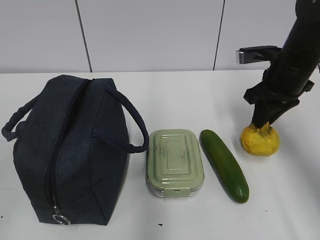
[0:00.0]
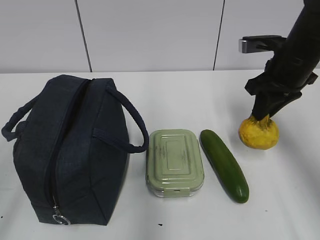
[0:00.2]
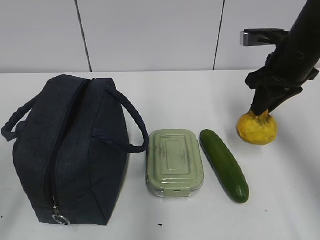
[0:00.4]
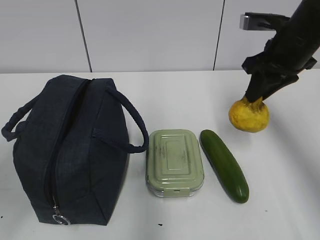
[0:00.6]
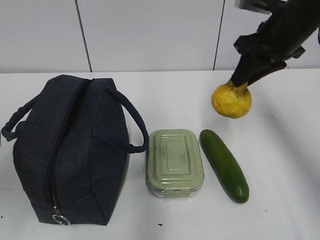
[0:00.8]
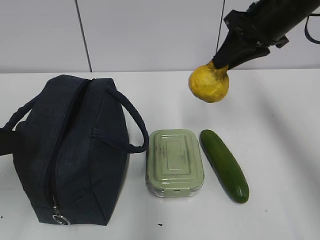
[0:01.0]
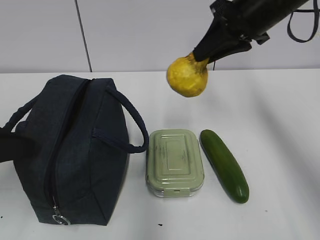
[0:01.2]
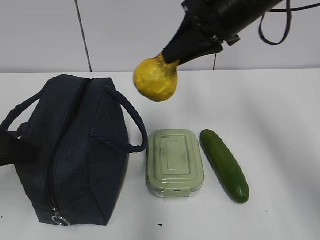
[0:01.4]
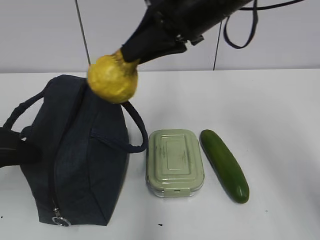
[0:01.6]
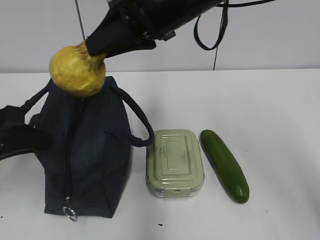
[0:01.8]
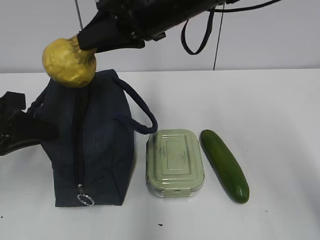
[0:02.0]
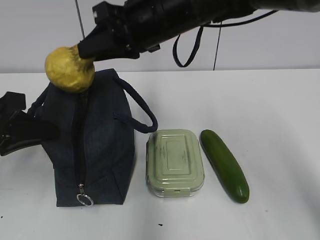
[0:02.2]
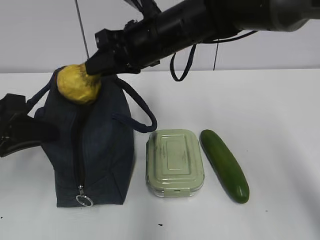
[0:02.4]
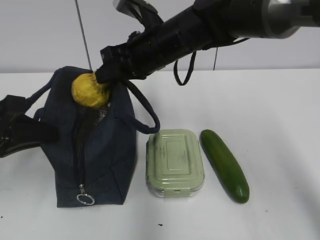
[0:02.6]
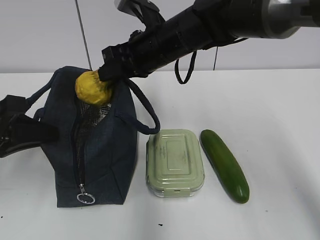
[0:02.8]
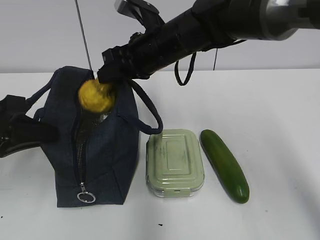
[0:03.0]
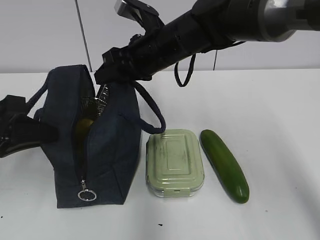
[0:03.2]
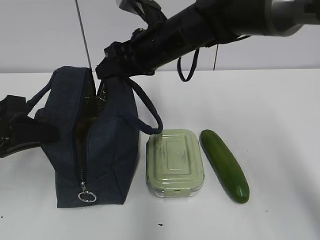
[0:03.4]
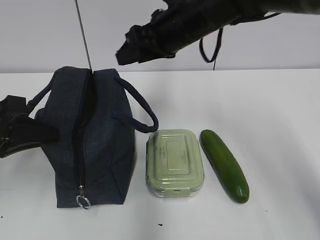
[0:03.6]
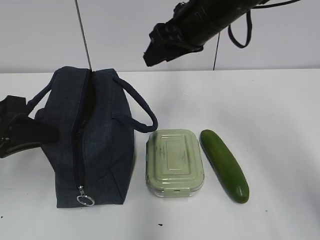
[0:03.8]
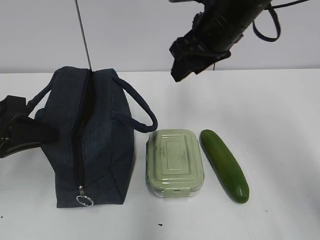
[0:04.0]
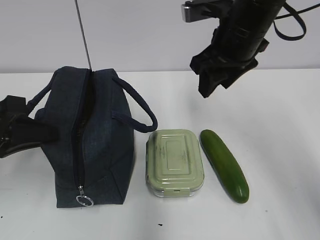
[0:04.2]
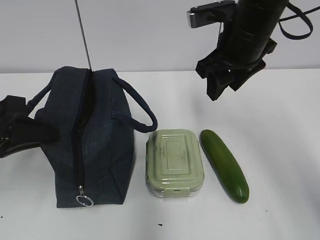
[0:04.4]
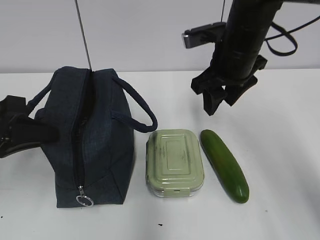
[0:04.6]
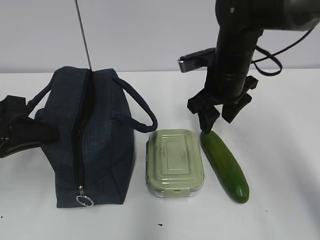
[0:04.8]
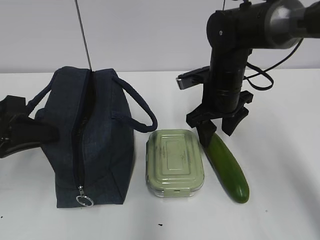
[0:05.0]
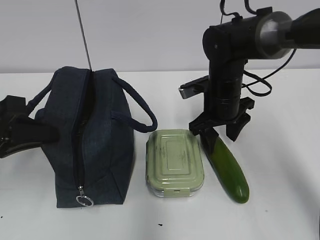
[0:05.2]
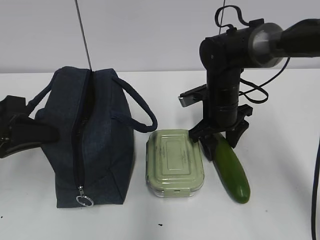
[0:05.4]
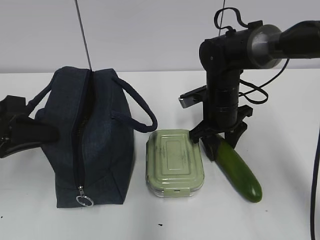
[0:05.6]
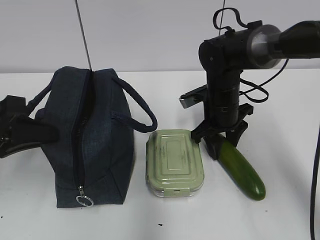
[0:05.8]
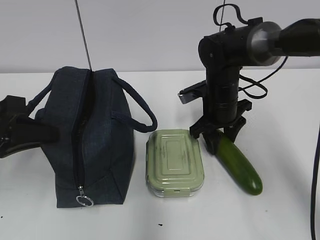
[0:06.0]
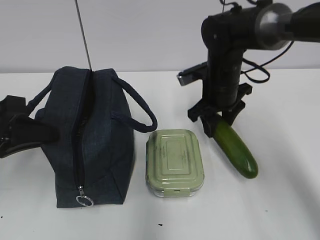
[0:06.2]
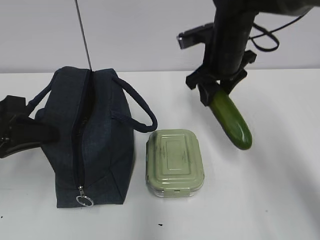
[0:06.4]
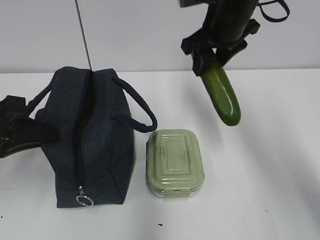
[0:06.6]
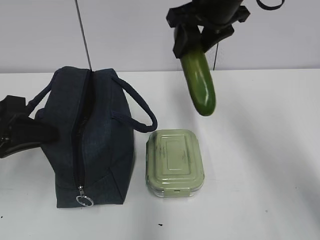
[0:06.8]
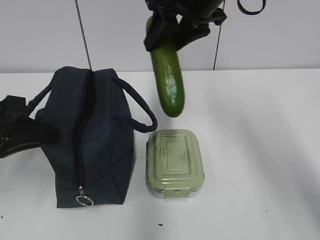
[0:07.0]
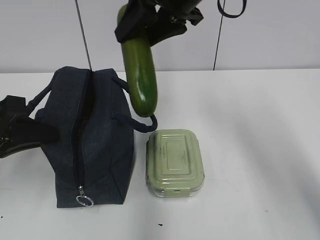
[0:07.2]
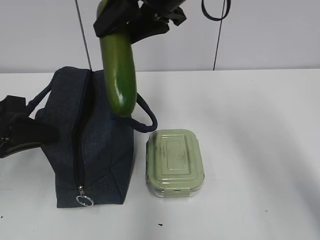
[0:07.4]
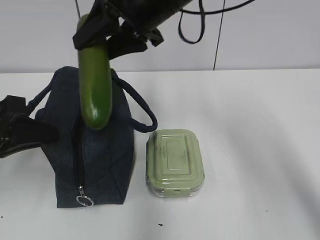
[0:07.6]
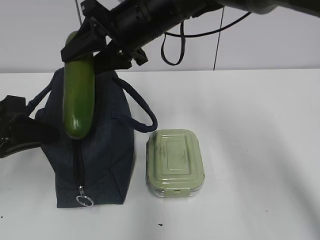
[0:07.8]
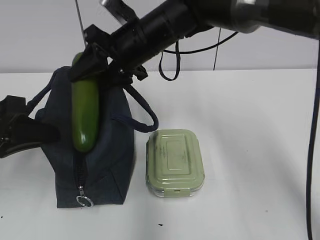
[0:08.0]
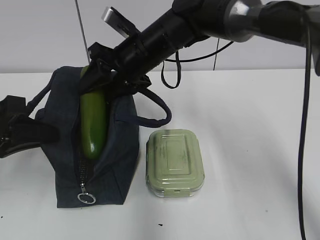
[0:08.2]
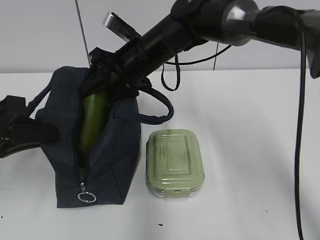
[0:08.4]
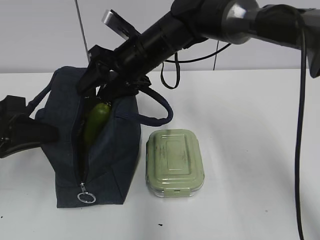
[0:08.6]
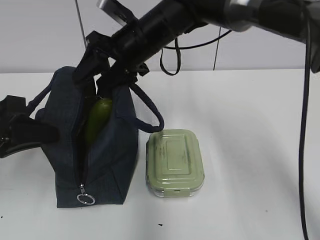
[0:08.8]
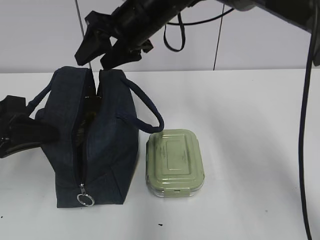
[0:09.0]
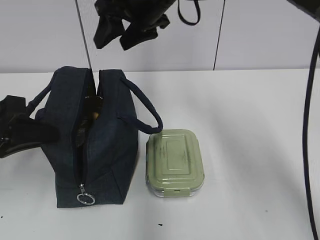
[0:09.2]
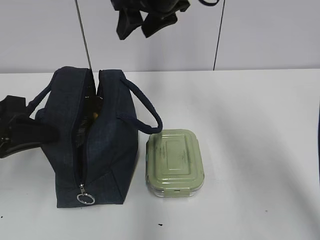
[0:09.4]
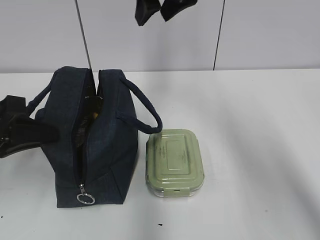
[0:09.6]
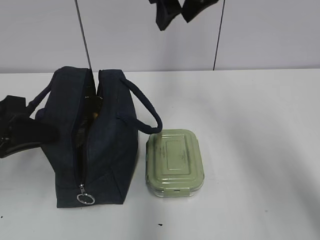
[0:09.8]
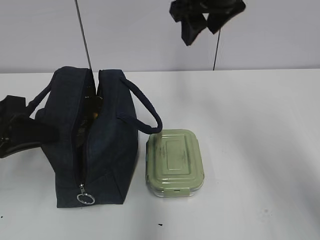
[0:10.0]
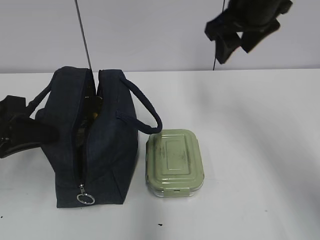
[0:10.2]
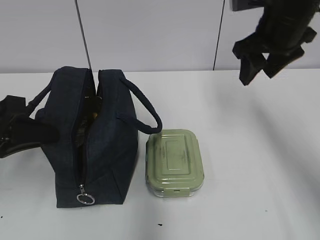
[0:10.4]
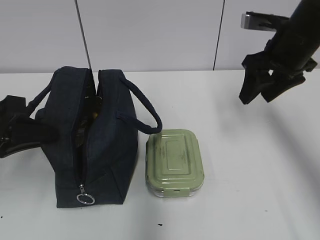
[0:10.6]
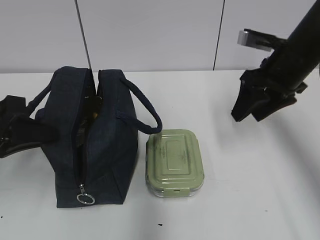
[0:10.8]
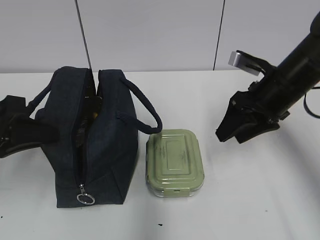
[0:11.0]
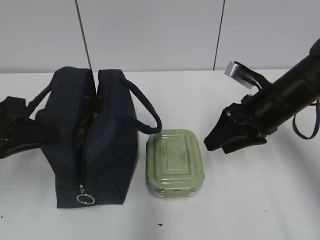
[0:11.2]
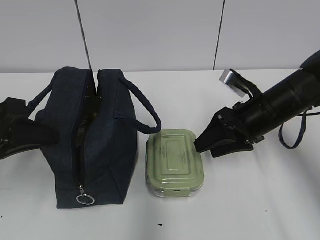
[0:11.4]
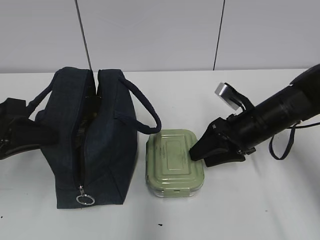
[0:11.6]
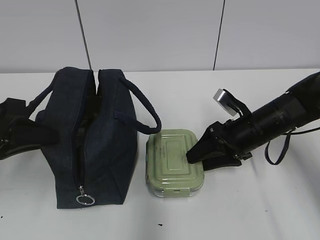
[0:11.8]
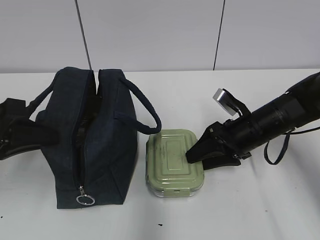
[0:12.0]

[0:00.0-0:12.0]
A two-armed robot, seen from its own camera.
Step, 0:00.0 to 0:02.6: Grab the lunch bag with your left hand.
Step, 0:02.8 to 0:03.2: Place it into the bag with your right hand.
Step, 0:03.4 to 0:05.8: Grab the cucumber with your right hand.
Step, 0:06.0 to 0:08.8: Place it into the bag with your right hand.
0:00.0 to 0:01.6: The left gripper is displaced forward and downward by approximately 20 cm, and closes. The right gripper shifts approximately 20 cm to the left and upward.
0:01.6 to 0:03.0: The right gripper is displaced downward and forward by approximately 10 cm.
0:03.0 to 0:04.4: The right gripper travels to the right by about 10 cm.
0:04.4 to 0:06.0: The right gripper goes about 15 cm downward.
0:06.0 to 0:07.6: The right gripper heads upward and to the left, covering about 20 cm.
0:07.6 to 0:09.0: The right gripper goes downward and returns, some 10 cm each way.
0:09.0 to 0:10.4: The right gripper heads to the right, covering roughly 20 cm.
0:10.4 to 0:12.0: The right gripper heads downward, covering about 20 cm.

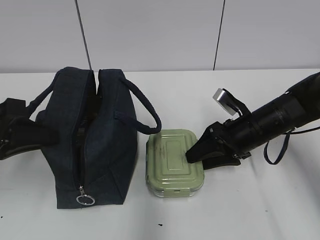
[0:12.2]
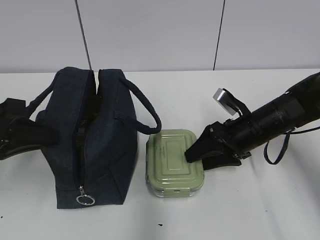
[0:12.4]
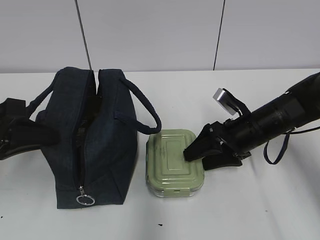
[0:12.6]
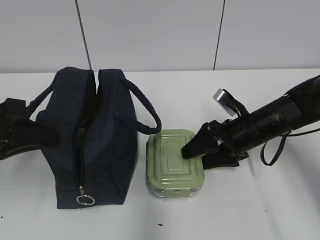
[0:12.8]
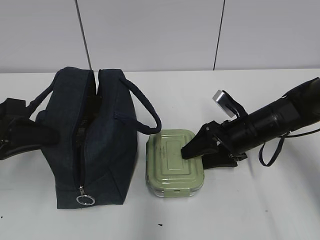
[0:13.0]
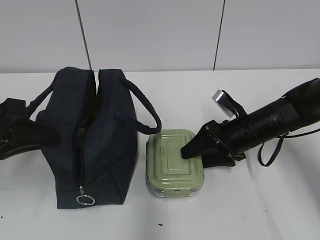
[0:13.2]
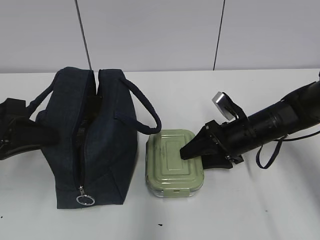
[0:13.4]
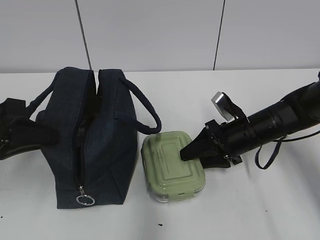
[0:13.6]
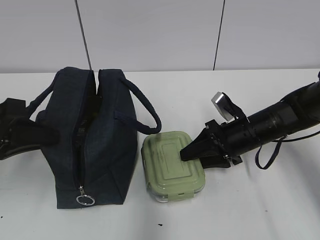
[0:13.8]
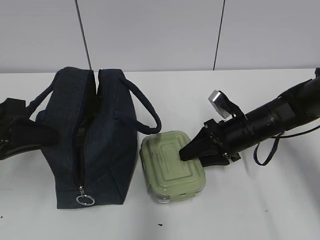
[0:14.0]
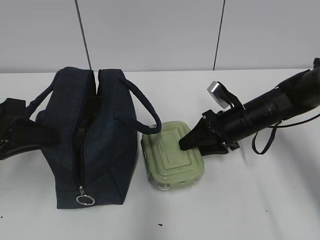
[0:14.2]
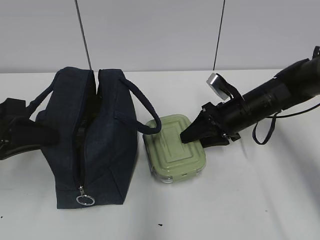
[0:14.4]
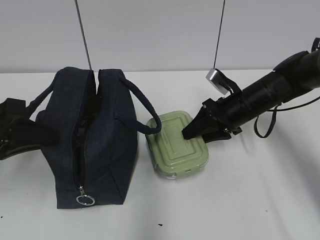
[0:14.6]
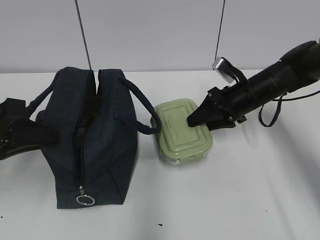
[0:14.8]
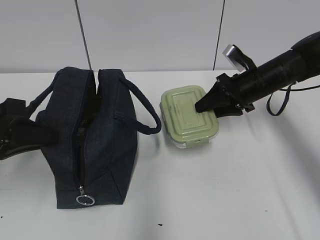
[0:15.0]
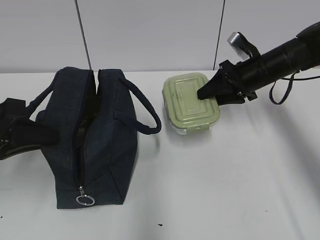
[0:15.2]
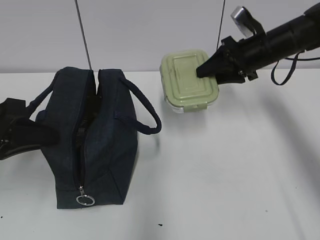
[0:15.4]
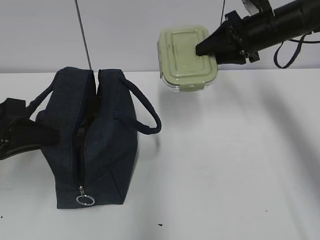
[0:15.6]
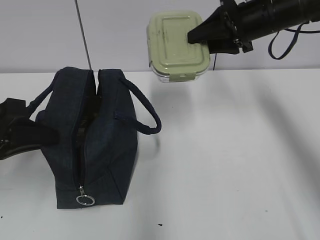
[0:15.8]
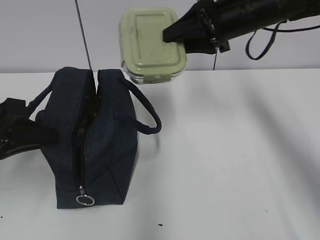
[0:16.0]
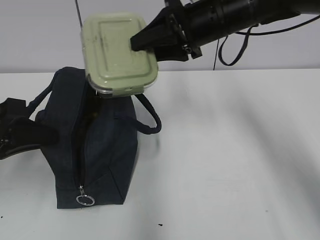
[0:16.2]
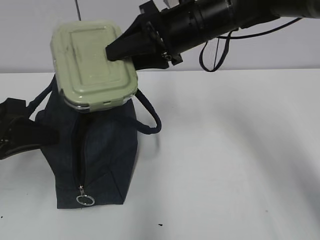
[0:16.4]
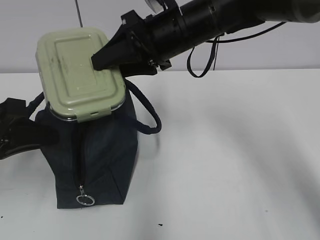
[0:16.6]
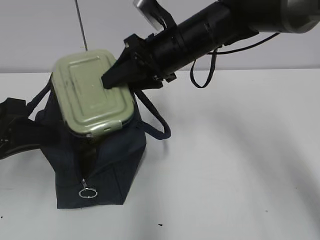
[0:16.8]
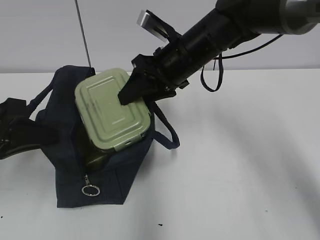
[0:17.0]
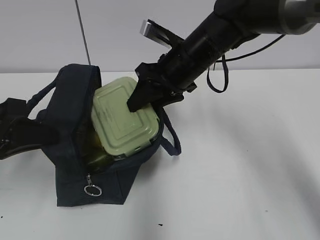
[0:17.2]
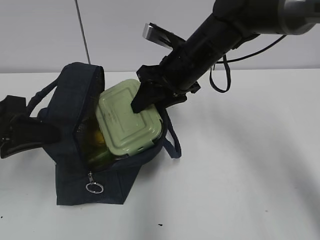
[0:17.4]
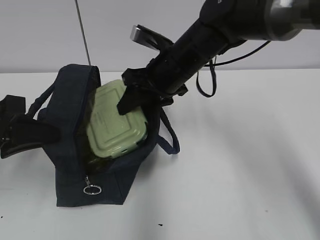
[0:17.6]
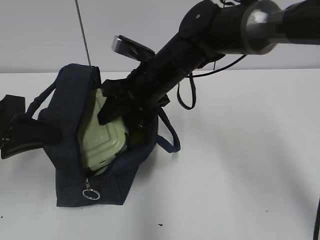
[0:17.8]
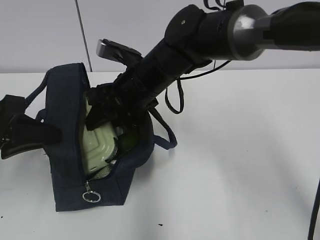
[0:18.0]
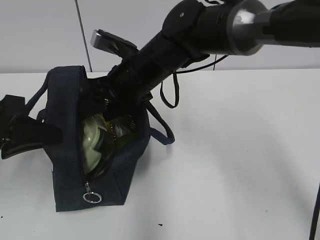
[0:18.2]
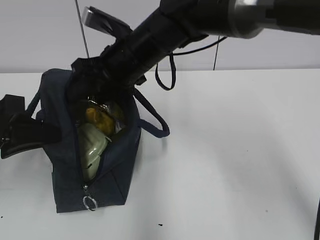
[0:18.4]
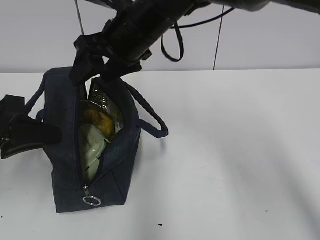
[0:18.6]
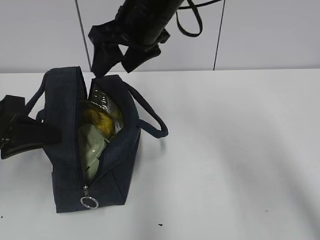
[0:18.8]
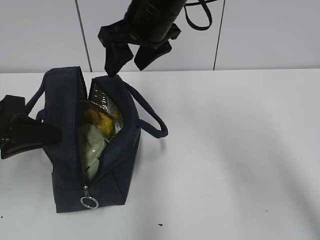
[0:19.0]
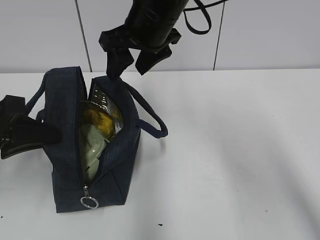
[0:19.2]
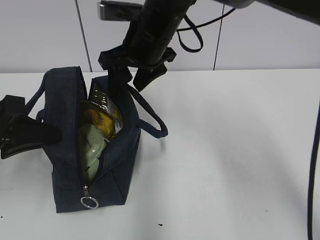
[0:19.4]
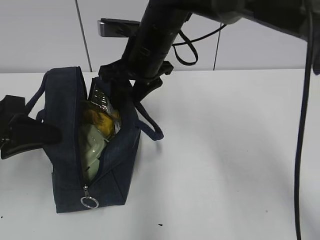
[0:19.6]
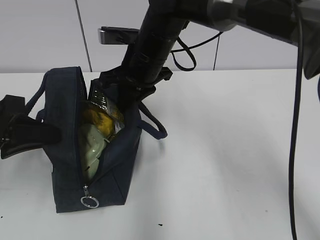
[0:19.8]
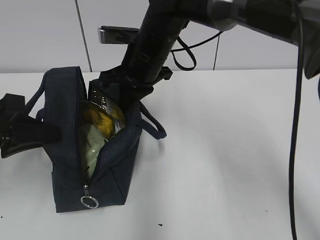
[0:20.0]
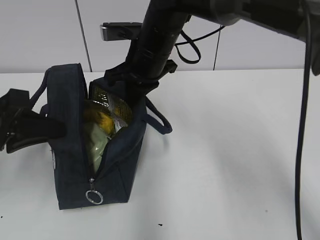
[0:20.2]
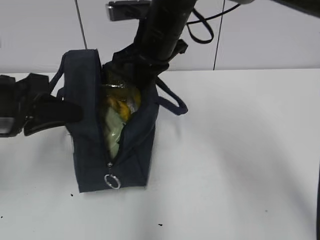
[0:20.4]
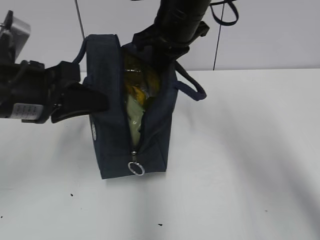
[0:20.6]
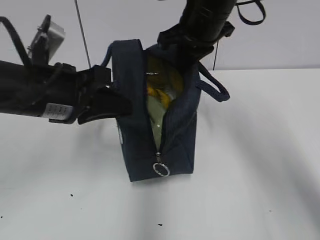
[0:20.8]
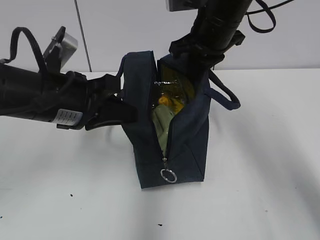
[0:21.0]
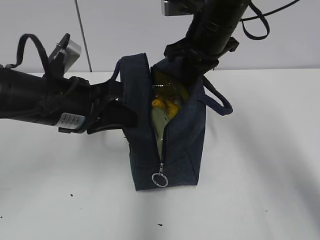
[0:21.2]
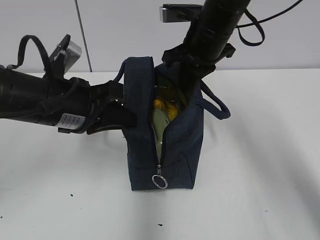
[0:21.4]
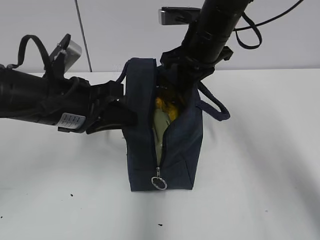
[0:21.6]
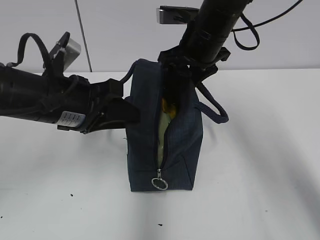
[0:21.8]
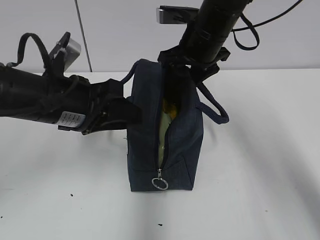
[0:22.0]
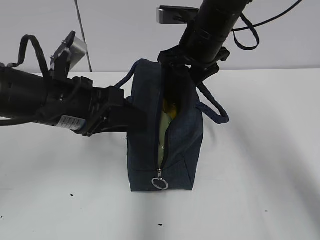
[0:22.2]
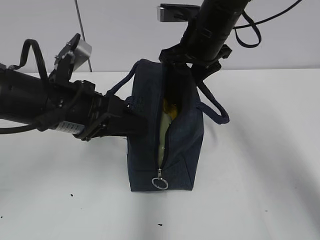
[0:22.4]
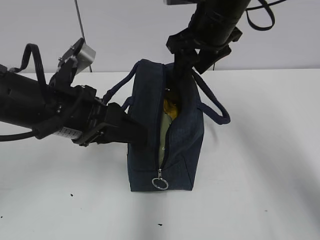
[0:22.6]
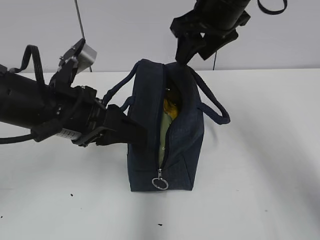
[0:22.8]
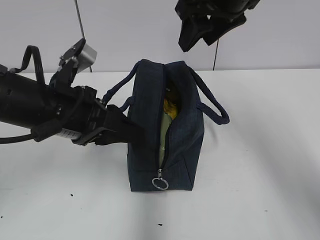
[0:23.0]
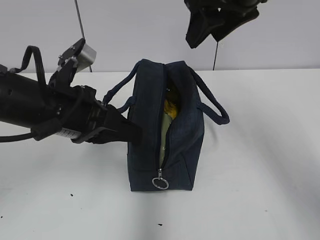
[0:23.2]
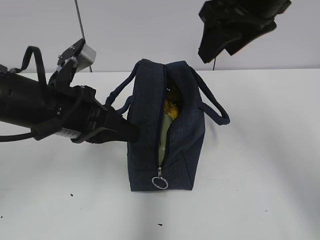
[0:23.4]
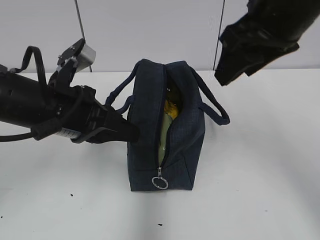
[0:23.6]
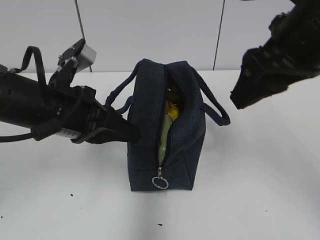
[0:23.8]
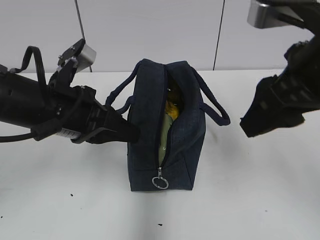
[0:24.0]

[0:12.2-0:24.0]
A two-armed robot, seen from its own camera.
Step, 0:14.0 to 0:18.6: Place it into the bag with your right hand.
Step, 0:18.8 to 0:19.8: Grab the lunch bag with your right hand.
Step, 0:20.0 to 0:20.4: Move the lunch bag to the left.
Step, 0:20.6 to 0:22.2: Move the lunch bag to the right.
0:12.2 to 0:13.6: The grippers make only small movements.
0:13.6 to 0:15.2: The right gripper goes roughly 10 cm upward and forward.
0:15.2 to 0:16.6: The right gripper is displaced to the left and upward by about 20 cm.
0:16.6 to 0:18.2: The right gripper shifts approximately 10 cm to the left and downward.
0:18.2 to 0:19.6: The right gripper moves roughly 10 cm upward and comes back.
0:19.6 to 0:21.0: The two grippers go about 10 cm to the right. The right gripper closes.
0:21.0 to 0:22.6: The right gripper opens up; the left gripper opens.
0:22.6 to 0:24.0: The right gripper travels backward by some 20 cm; the left gripper closes up.
